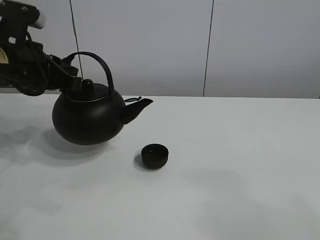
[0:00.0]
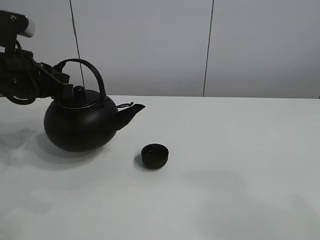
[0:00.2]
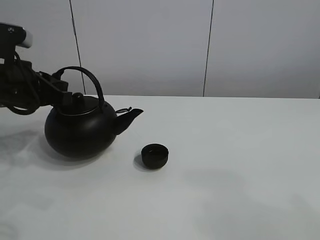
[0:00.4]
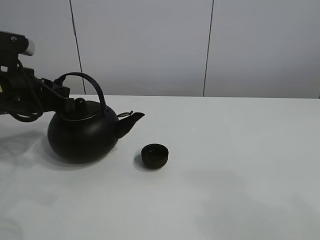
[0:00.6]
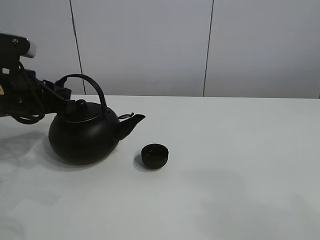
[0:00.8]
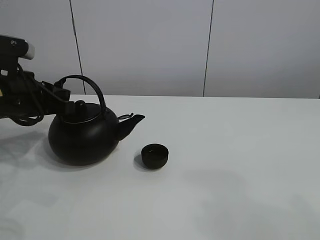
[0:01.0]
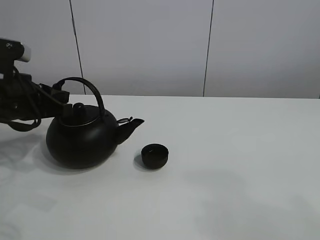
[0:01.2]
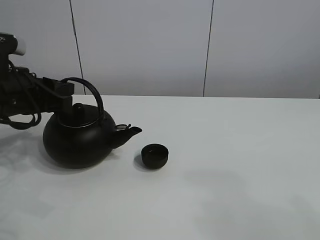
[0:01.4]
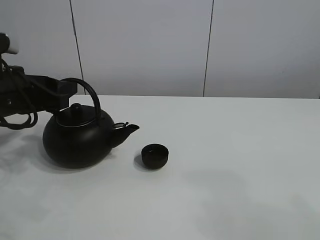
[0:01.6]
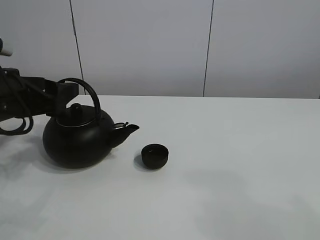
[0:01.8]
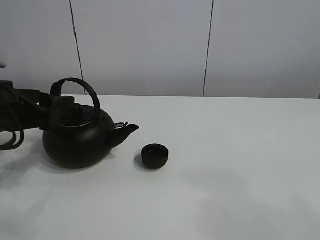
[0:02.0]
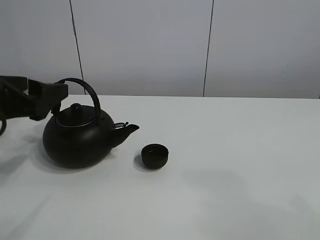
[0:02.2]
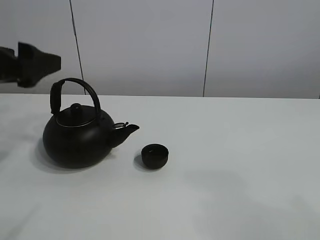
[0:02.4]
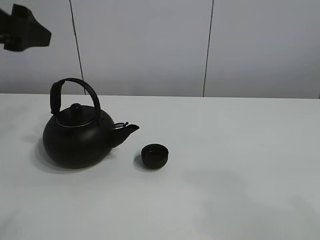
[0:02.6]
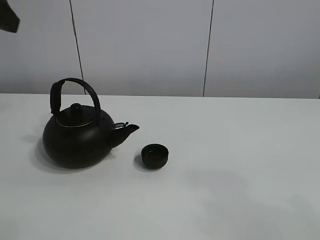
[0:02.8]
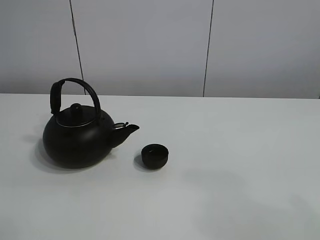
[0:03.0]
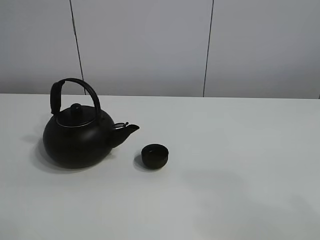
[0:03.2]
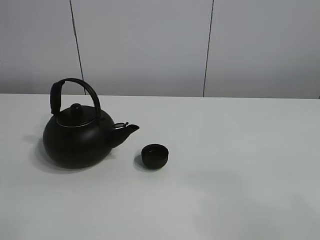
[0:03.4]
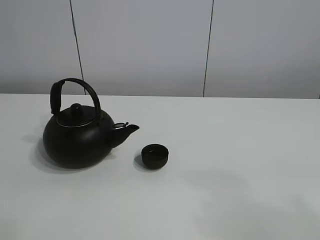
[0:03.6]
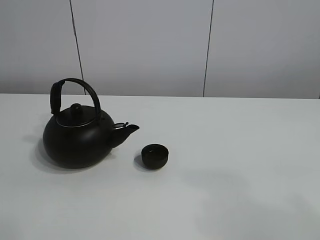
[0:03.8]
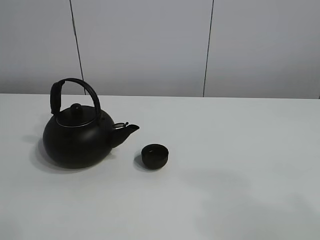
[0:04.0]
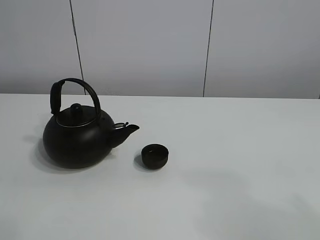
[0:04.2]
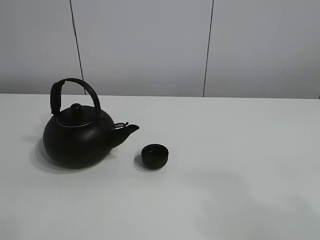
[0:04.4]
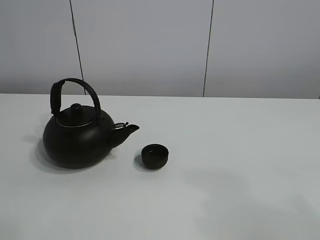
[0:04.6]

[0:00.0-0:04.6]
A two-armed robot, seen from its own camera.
Task of the whole recording: pour tea into the teacup.
0.0 to 1.6 s: The left gripper changes place by roughly 5 cm, and opens its fingers.
1.6 to 3.0 s: The left gripper moves upward and backward, approximately 25 cm, and opens.

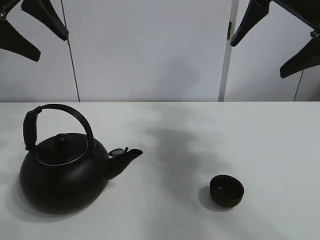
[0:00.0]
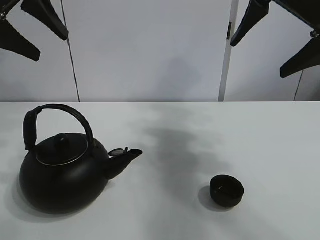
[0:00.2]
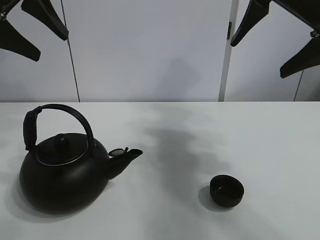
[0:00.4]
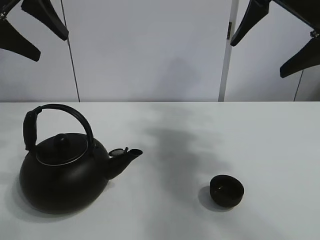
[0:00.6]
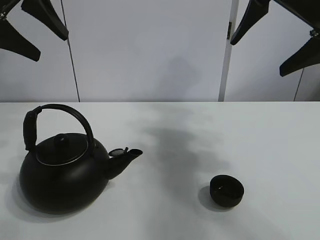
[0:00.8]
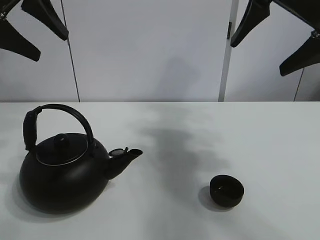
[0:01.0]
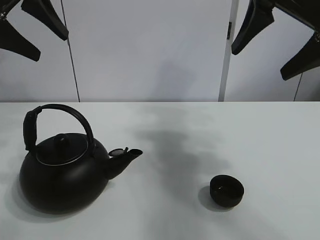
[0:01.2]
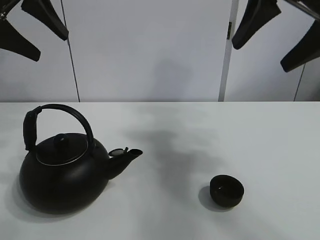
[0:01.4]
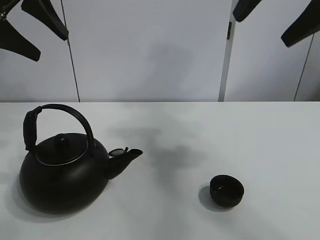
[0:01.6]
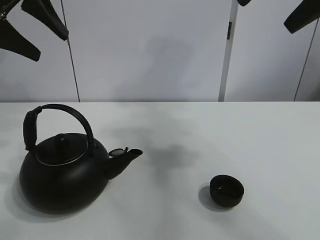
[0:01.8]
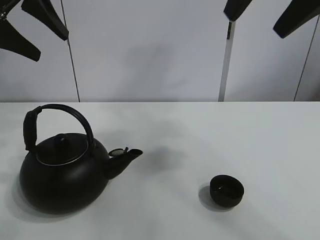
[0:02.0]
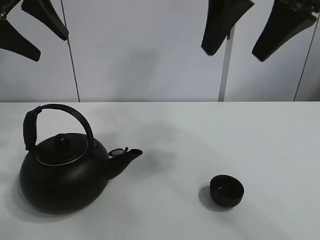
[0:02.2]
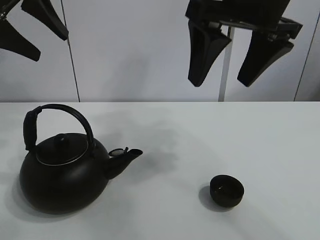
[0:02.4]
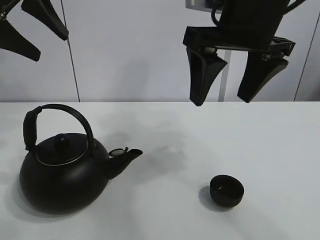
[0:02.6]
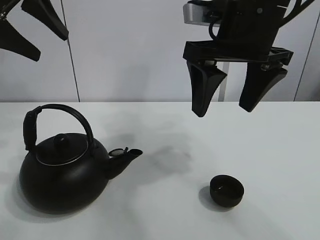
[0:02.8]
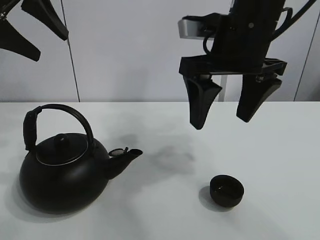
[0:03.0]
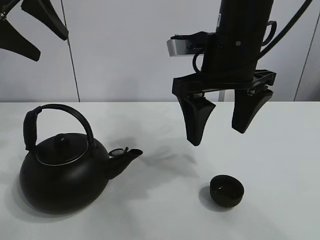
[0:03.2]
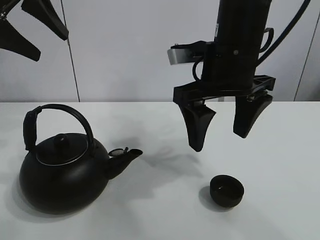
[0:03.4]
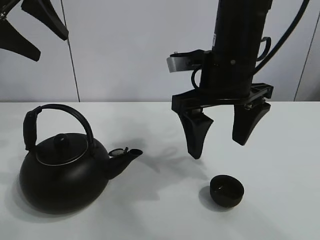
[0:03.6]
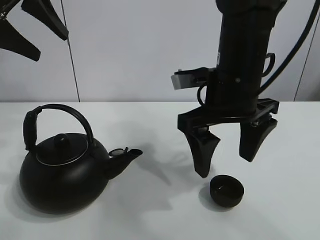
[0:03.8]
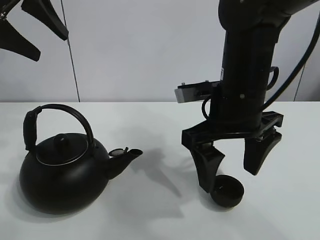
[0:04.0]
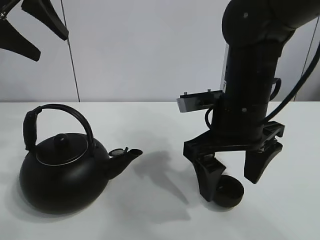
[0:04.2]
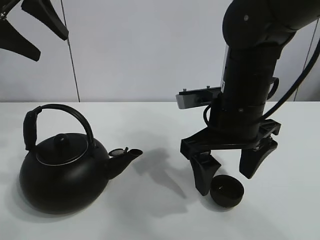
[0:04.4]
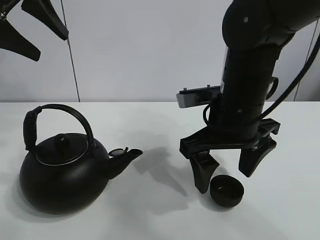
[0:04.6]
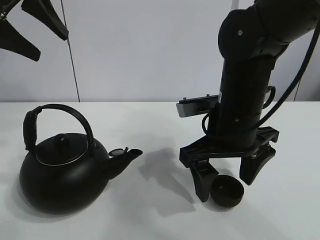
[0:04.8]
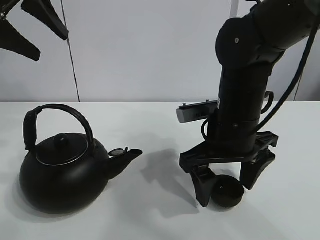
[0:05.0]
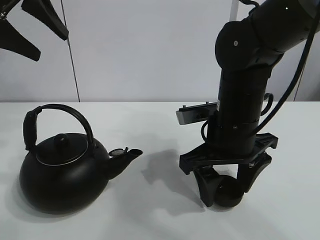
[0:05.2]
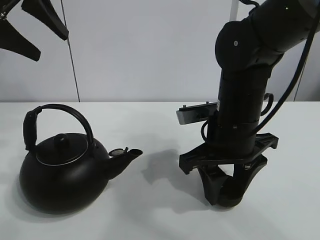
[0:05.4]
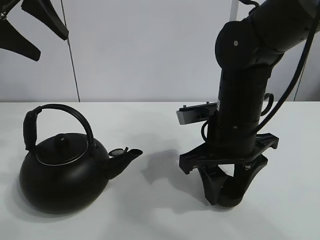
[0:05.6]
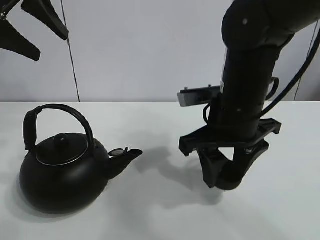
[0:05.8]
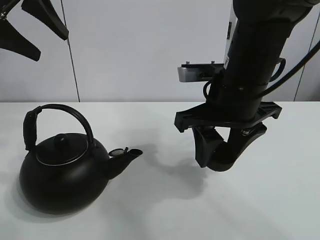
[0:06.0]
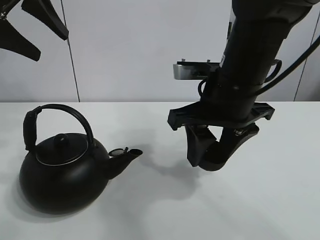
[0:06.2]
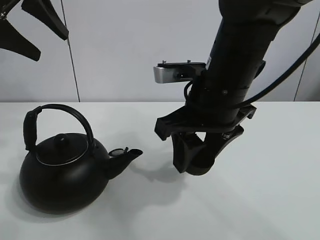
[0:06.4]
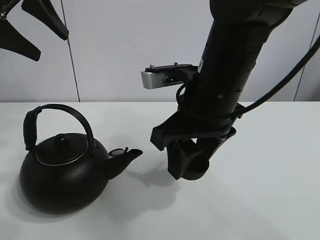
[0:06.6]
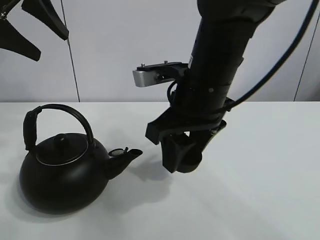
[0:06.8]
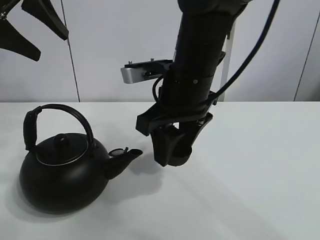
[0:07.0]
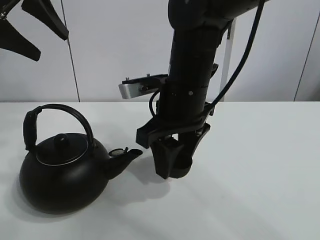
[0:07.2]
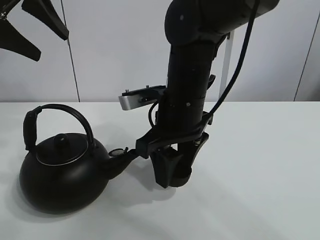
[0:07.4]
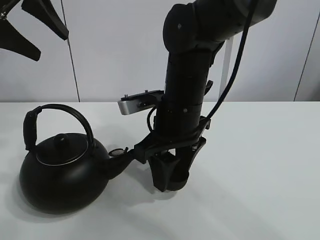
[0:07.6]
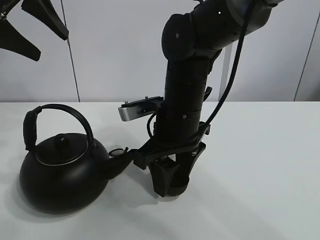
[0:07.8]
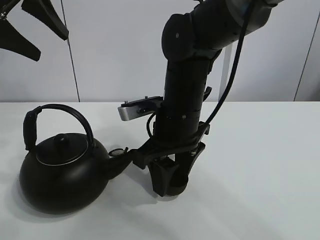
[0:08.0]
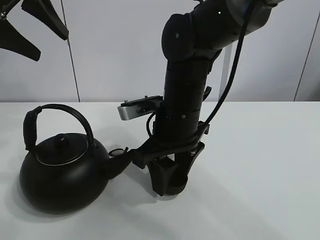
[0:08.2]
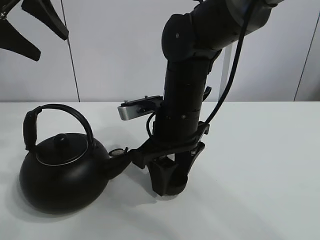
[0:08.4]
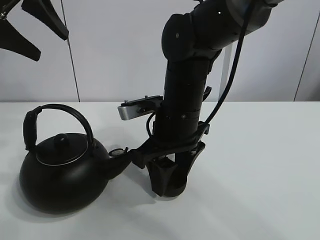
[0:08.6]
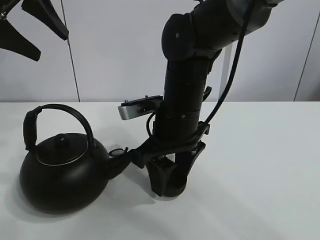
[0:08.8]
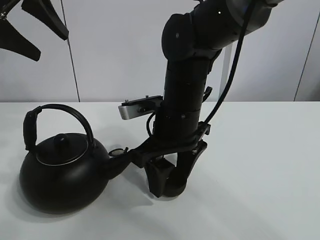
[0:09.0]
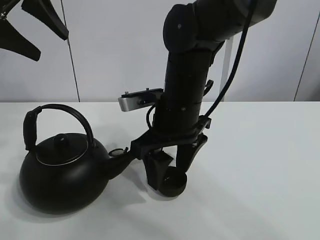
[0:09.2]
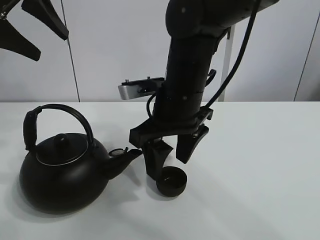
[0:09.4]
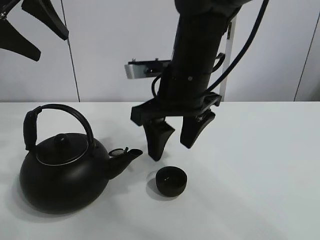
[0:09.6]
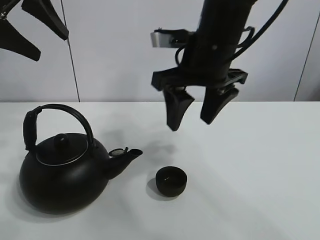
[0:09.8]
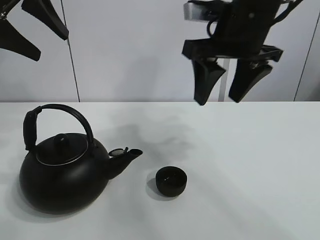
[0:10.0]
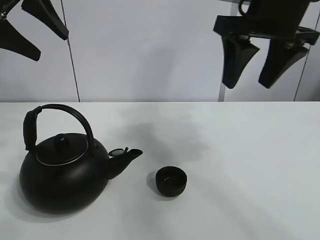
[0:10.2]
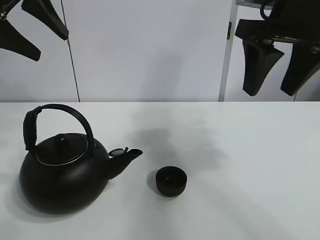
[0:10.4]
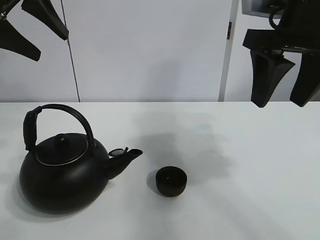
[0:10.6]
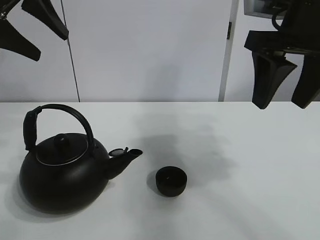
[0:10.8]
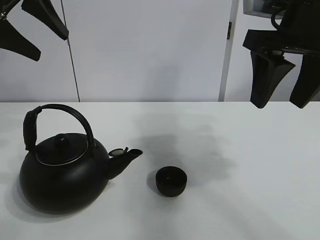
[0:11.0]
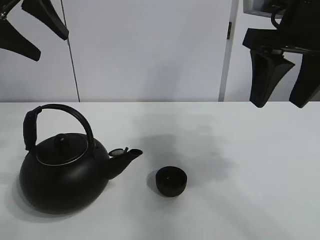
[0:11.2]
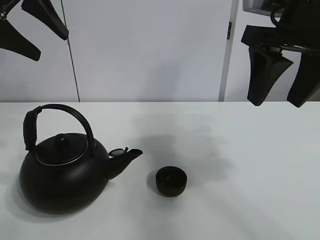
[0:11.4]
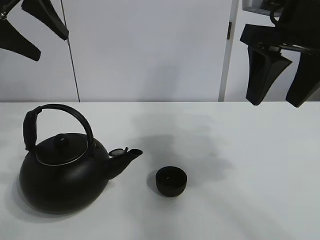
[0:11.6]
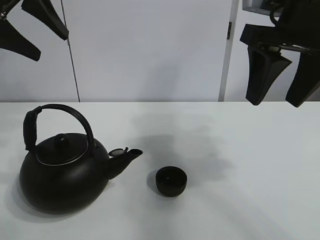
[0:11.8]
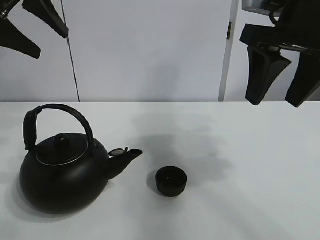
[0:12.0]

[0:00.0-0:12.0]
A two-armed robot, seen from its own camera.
Task of the whole recording: pour tea into the teacup.
Step, 0.0 to 5.4 s: Pick up the teacup with the right gripper.
Step, 5.6 to 9.0 s: Place the teacup in the center of view with the right gripper.
1.6 to 3.0 s: The right gripper travels downward and to the left by roughly 15 cm.
3.0 to 4.4 s: The right gripper heads downward, covering approximately 10 cm.
4.4 to 6.0 s: The right gripper closes up.
6.0 to 7.6 s: The right gripper moves to the left, some 5 cm.
7.6 to 9.0 s: The right gripper opens its fingers.
9.0 to 10.4 s: The right gripper shifts roughly 20 cm upward and to the right.
10.4 to 12.0 s: There are only small adjustments of the grippers.

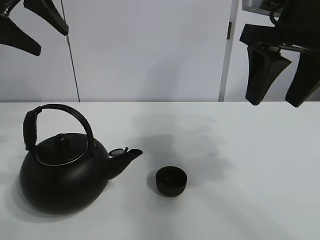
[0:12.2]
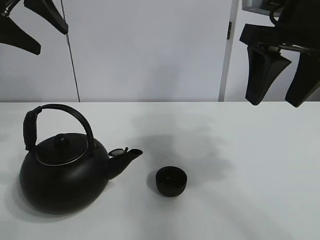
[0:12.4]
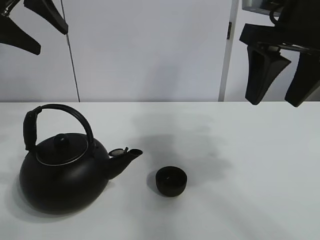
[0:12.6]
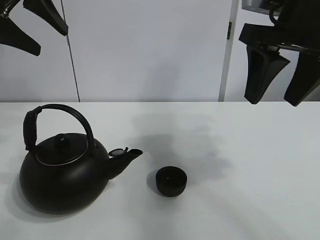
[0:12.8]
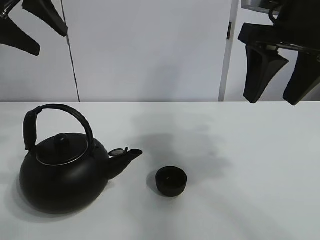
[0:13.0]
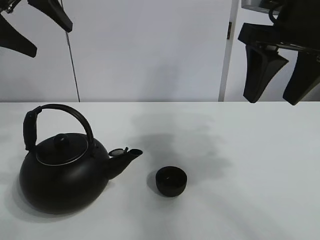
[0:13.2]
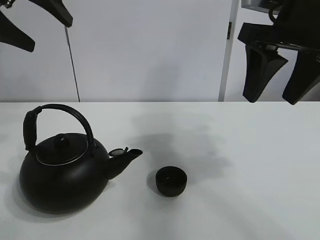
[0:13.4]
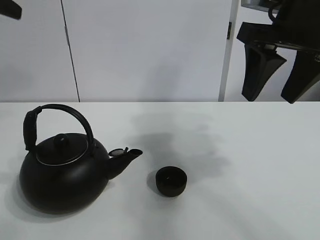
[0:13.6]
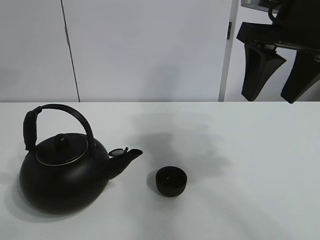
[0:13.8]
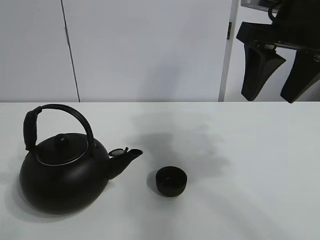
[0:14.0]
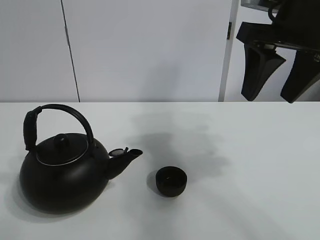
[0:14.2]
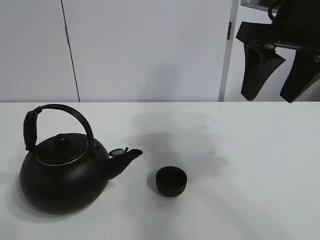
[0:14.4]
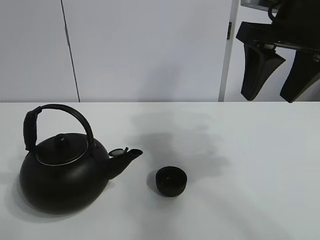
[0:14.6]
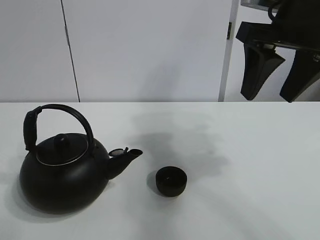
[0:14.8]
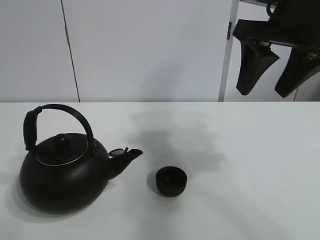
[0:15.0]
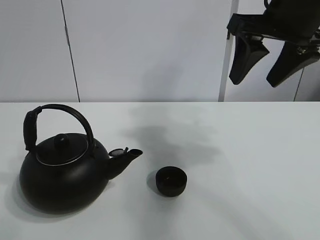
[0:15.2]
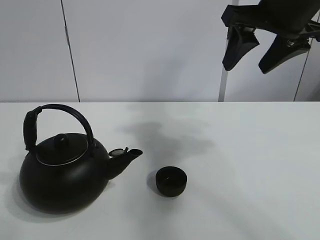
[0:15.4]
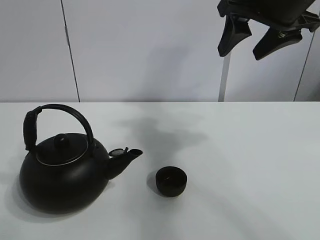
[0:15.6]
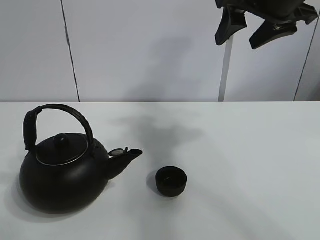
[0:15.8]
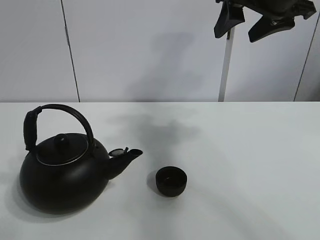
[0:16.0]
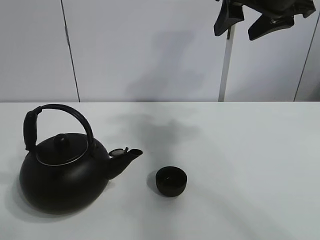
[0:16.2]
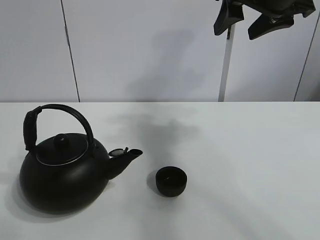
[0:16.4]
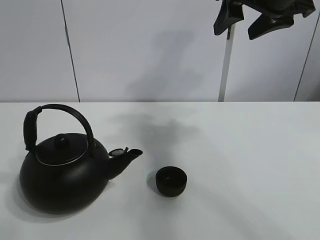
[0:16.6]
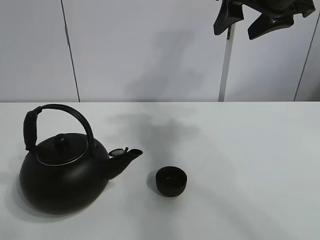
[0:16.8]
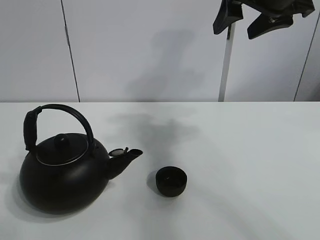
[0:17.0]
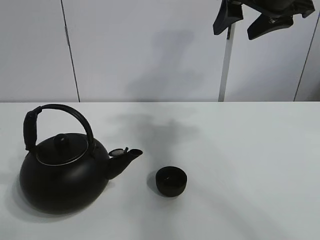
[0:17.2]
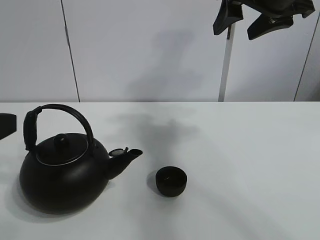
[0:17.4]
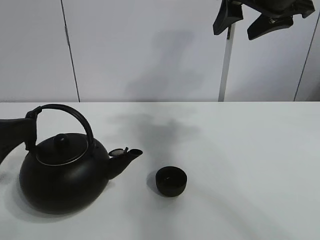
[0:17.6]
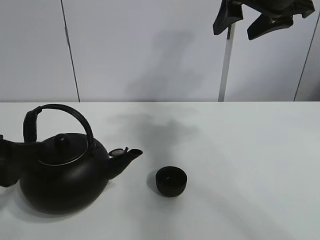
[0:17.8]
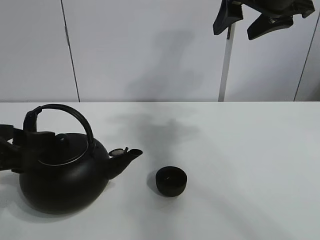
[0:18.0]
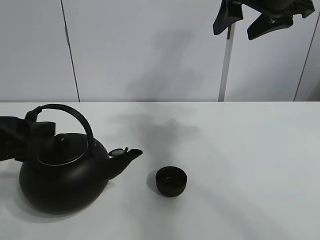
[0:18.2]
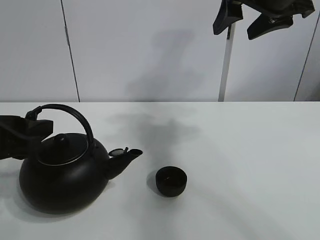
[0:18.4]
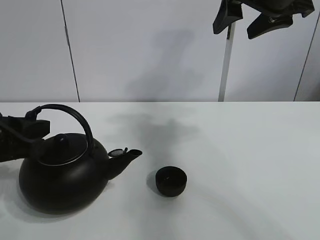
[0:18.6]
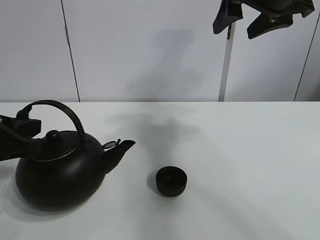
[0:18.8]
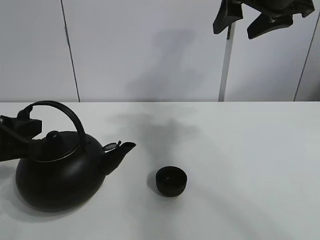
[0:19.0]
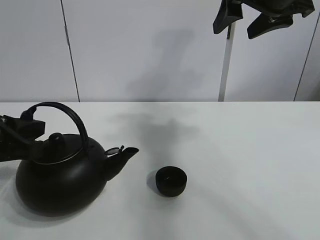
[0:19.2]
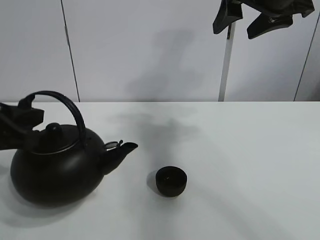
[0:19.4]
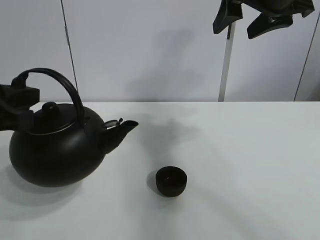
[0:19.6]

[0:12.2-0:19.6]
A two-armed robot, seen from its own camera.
Task of the whole recording: pour tea into the teacup.
Step, 12.2 to 18.8 s: Pick up the teapot with the left gripper.
12.2 to 13.6 s: The left gripper changes place by some 5 cm.
13.6 to 15.2 s: The left gripper travels backward by roughly 15 cm.
15.2 to 16.6 s: The left gripper goes roughly 10 cm downward.
16.6 to 18.2 s: The left gripper travels forward and downward by roughly 15 cm.
18.2 to 19.6 s: The left gripper closes.
